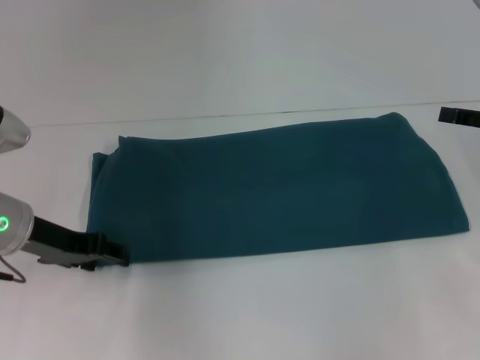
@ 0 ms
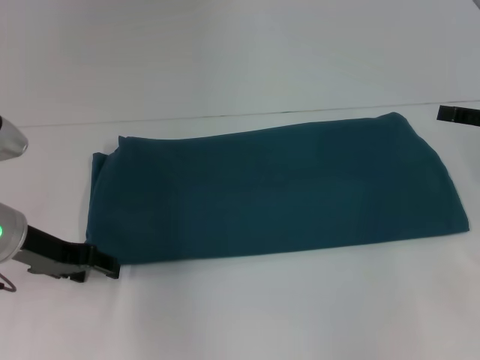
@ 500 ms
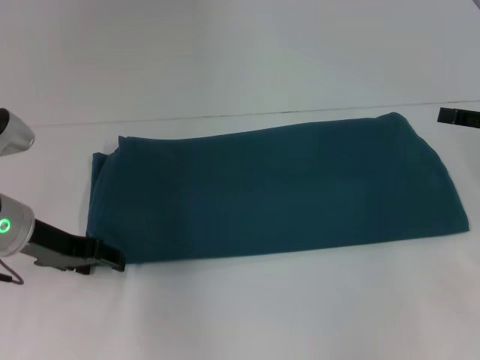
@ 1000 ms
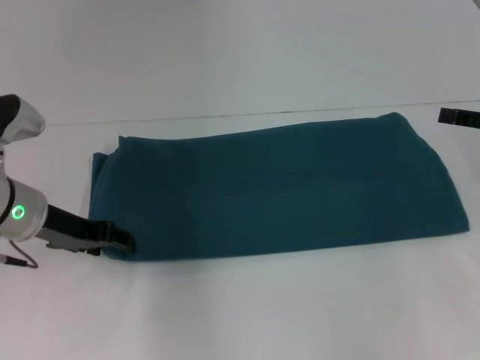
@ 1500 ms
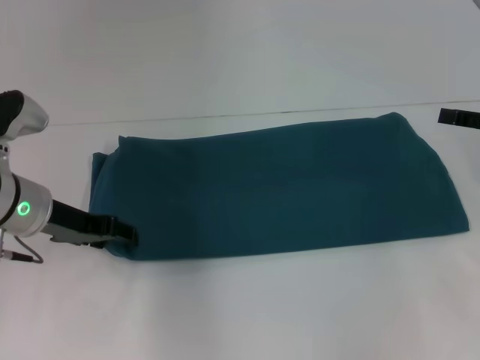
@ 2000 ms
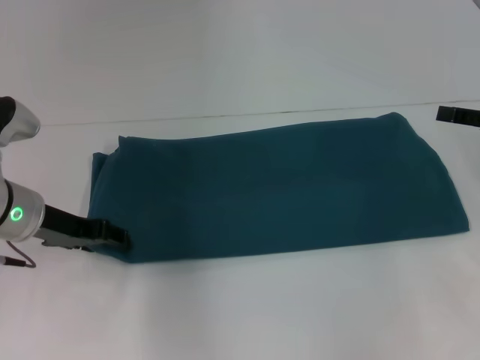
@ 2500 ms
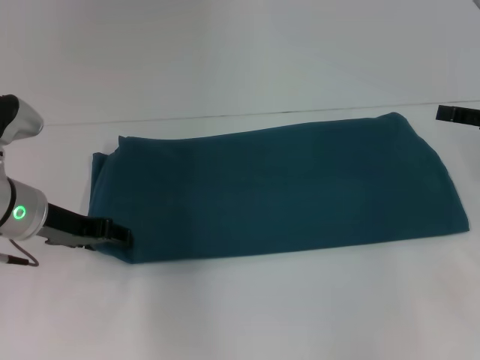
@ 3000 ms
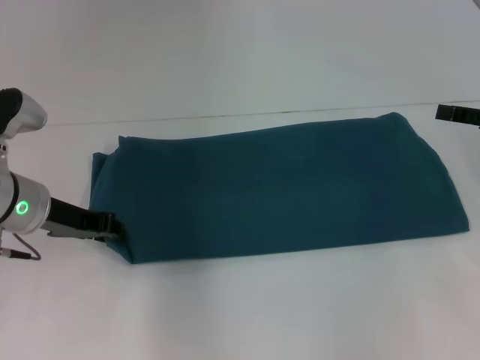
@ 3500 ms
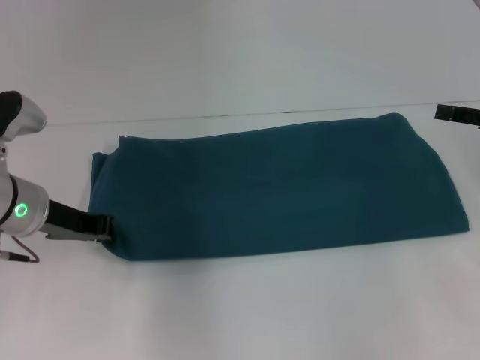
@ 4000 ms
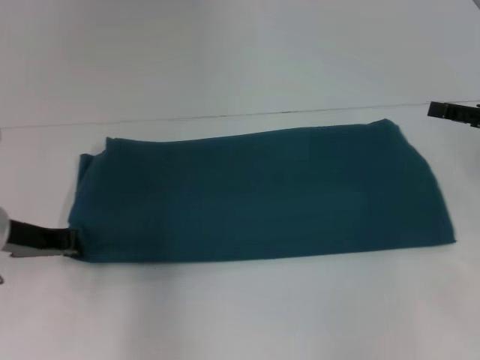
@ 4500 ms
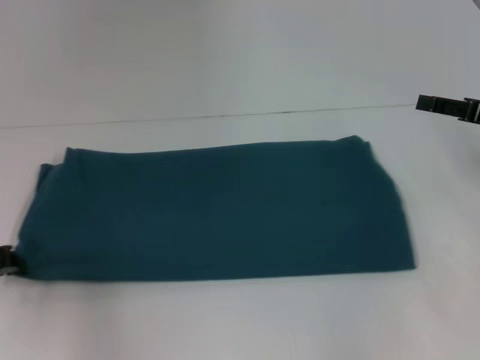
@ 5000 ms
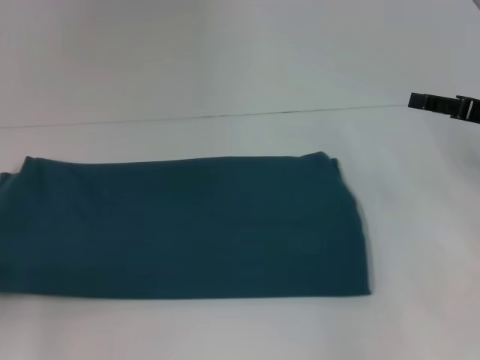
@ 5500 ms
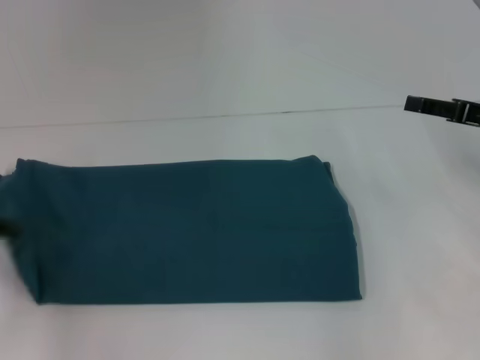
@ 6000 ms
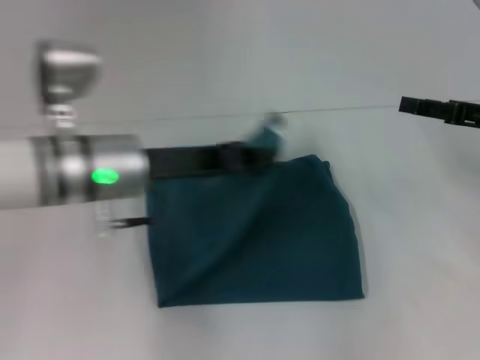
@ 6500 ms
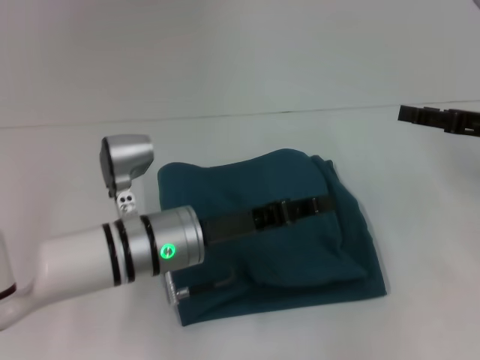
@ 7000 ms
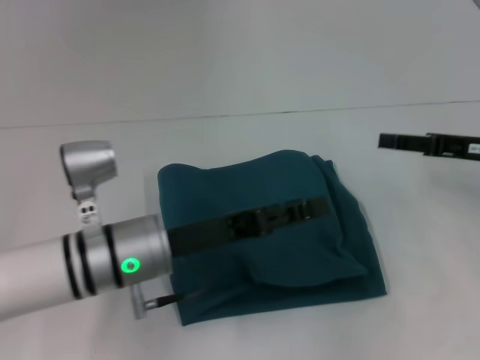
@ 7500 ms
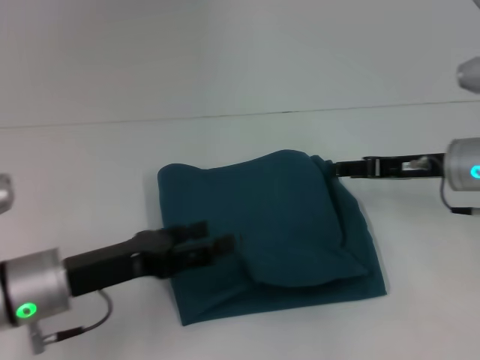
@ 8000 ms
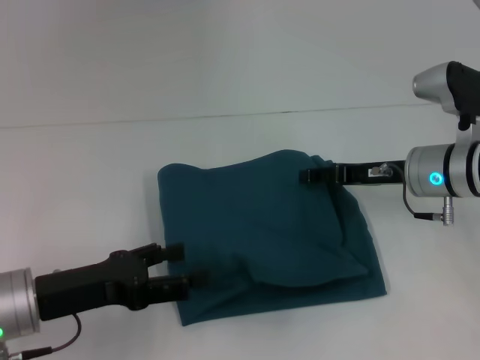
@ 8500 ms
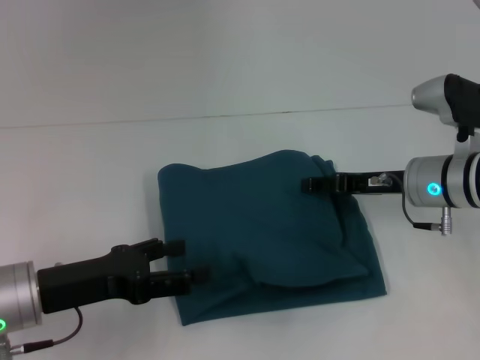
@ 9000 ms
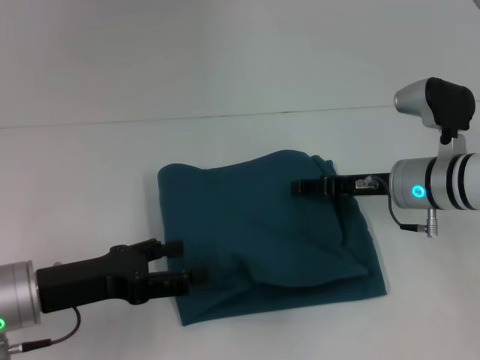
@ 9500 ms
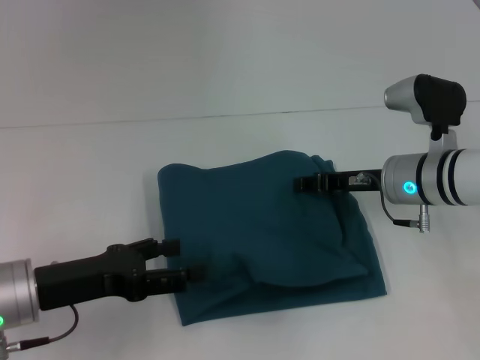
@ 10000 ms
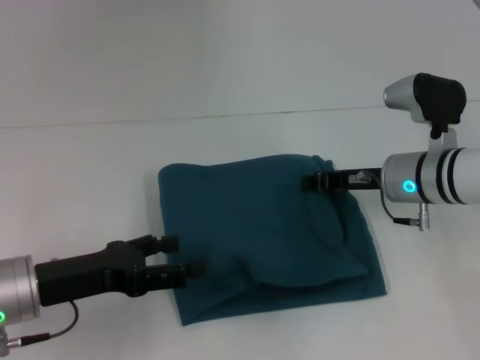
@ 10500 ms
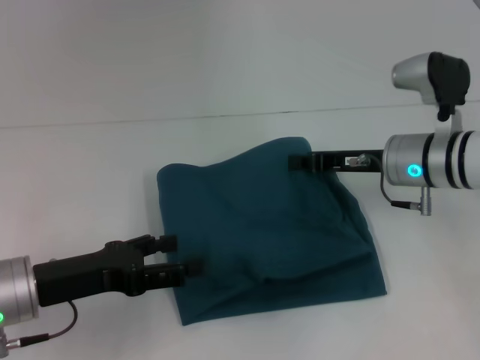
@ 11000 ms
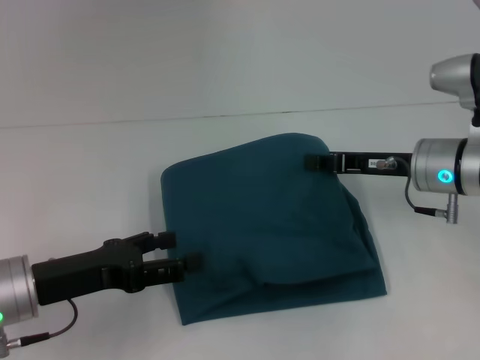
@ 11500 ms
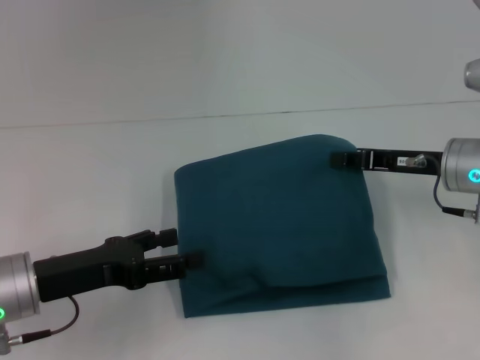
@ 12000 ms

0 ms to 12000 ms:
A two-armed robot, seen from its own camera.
Step, 0 ms to 7000 ms: Fold the clothes to the left.
0 ms to 2000 ms: The grippers move only a little.
2000 ms to 4000 ms: The left gripper closes up.
4000 ms to 6000 ms: The left gripper is displaced to the left and backward by some 15 cm.
6000 ms to 8000 ms: The left gripper goes roughly 15 cm to the right, and opens its fingers. Meanwhile the right gripper shifts about 5 cm to the left.
8000 ms to 10000 ms: The right gripper moves to the left, some 5 cm, and closes up.
10000 ms to 12000 ms: The right gripper ends up some 5 cm from where it was, and closes.

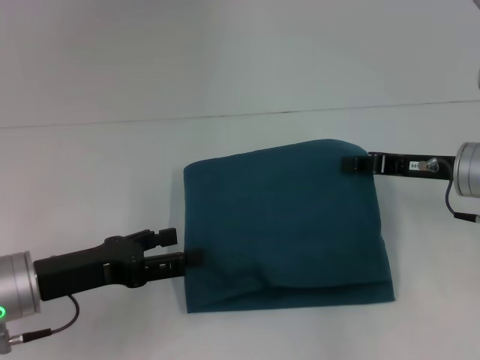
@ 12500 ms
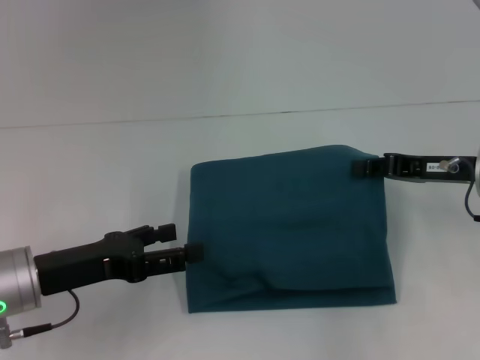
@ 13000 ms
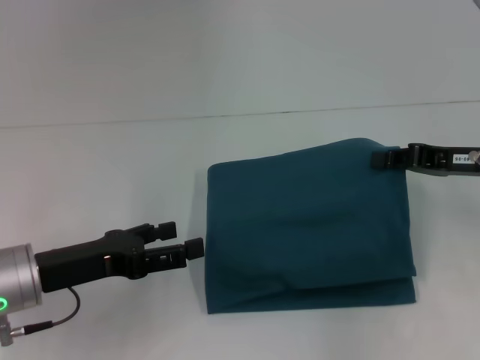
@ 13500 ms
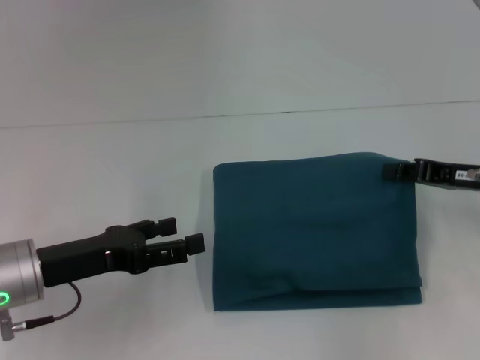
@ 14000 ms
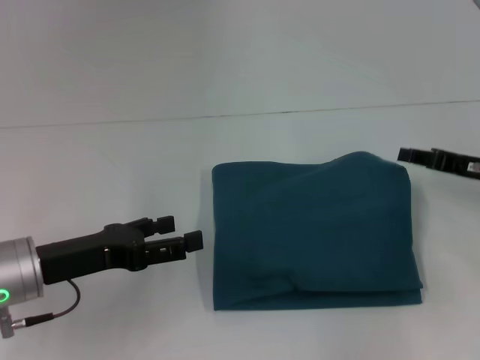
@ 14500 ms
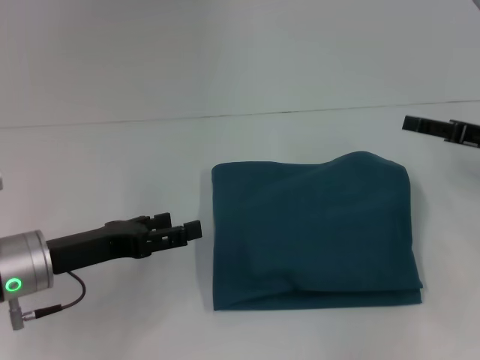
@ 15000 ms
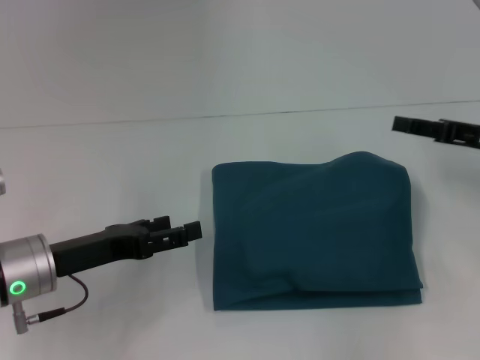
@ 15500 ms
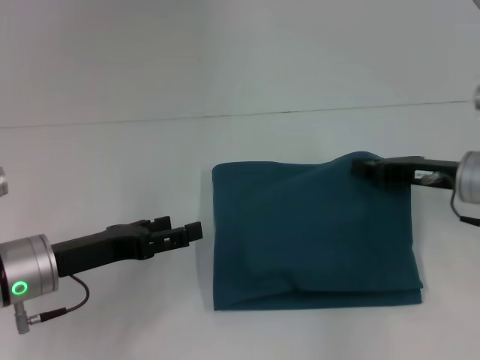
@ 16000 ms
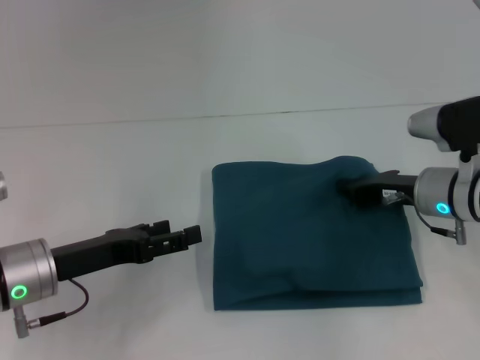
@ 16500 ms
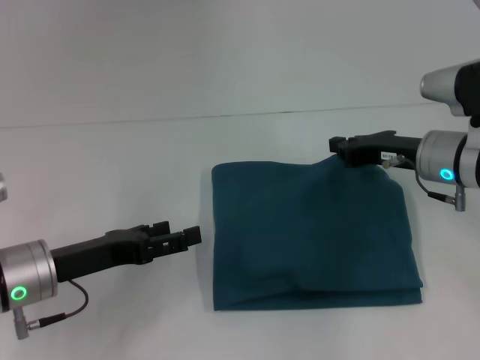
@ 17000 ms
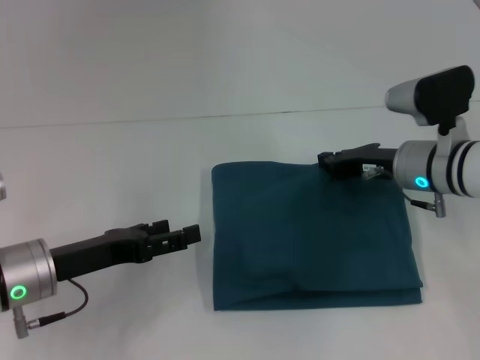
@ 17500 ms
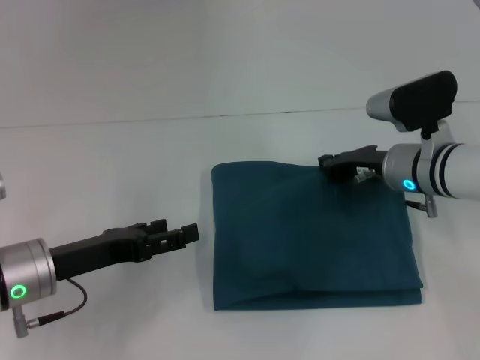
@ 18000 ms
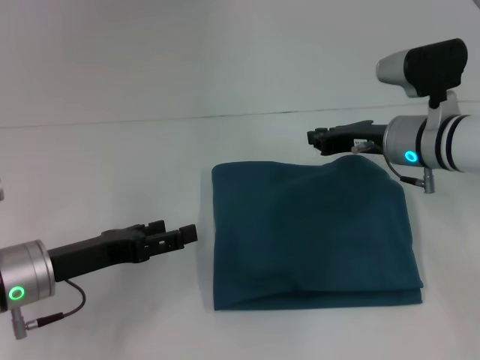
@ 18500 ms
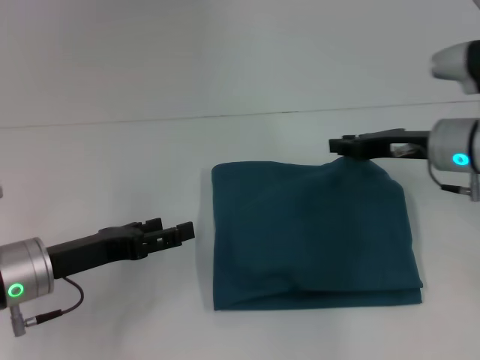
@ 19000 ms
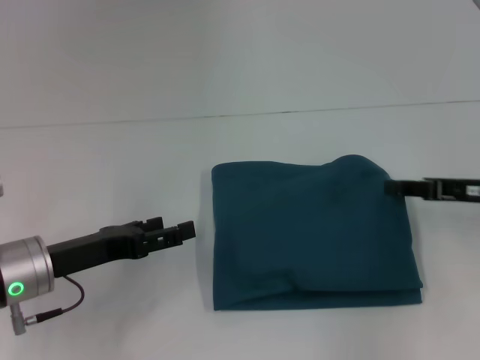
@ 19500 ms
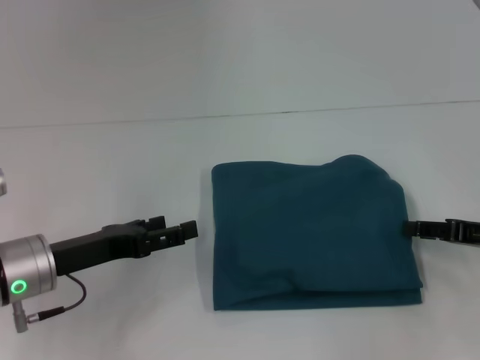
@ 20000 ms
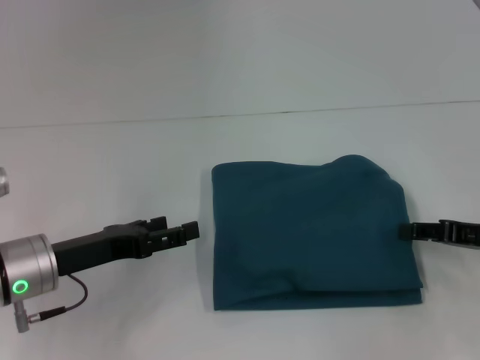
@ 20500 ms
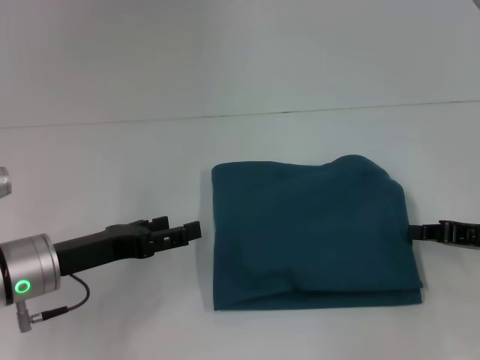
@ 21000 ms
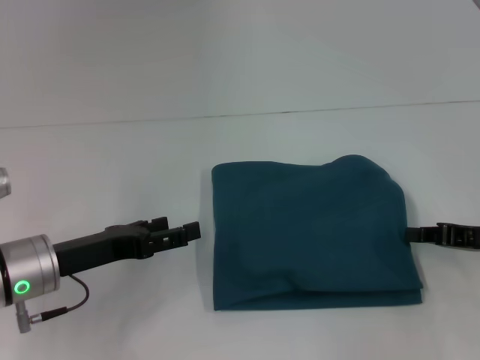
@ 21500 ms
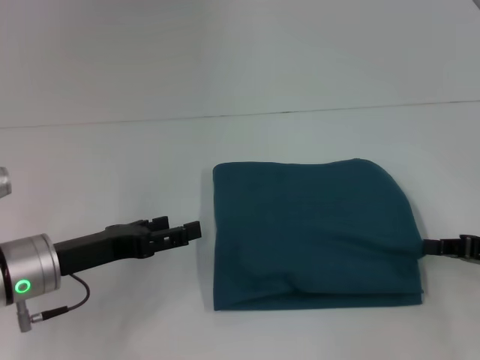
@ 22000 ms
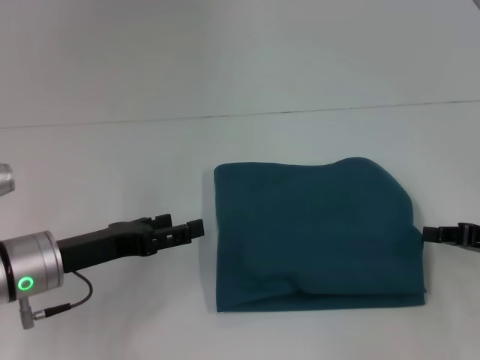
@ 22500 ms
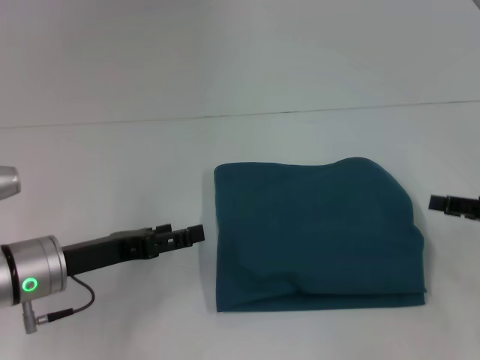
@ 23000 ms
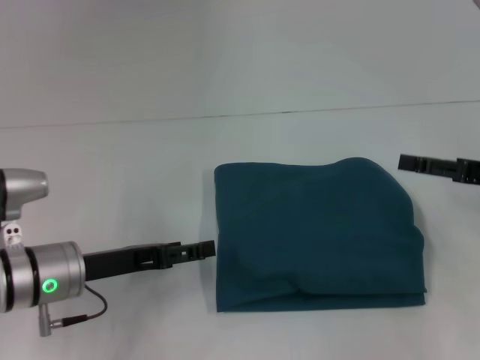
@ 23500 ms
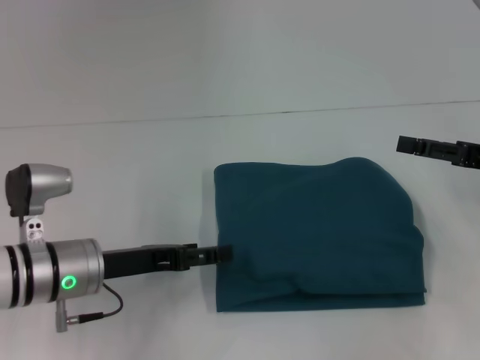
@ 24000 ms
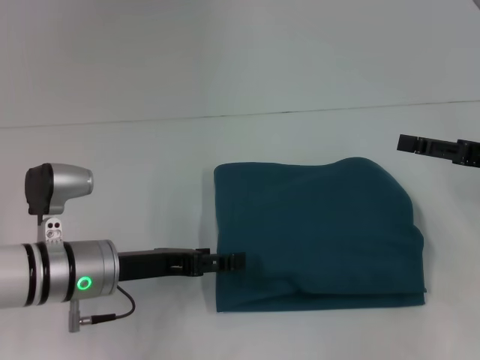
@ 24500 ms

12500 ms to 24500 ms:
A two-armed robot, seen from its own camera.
12500 ms to 14500 ms: The right gripper goes about 5 cm to the right.
14500 ms to 16500 ms: The right gripper moves to the left, some 10 cm, and opens and closes again.
16500 ms to 18500 ms: The right gripper ends up about 5 cm from where it was.
18500 ms to 20500 ms: The right gripper is displaced to the right and backward by roughly 15 cm, and opens its fingers.
20500 ms to 22500 ms: The right gripper closes.
22500 ms to 24500 ms: The right gripper moves upward, roughly 5 cm, and opens its fingers. Meanwhile the left gripper moves some 5 cm.

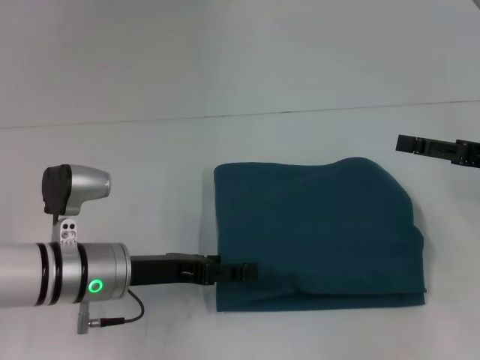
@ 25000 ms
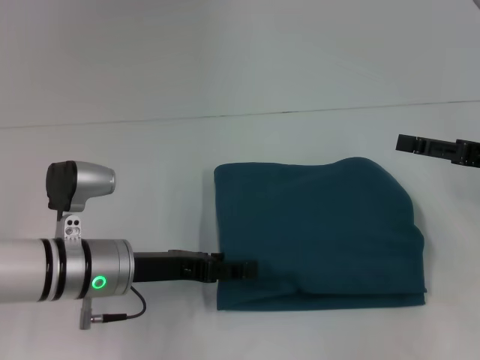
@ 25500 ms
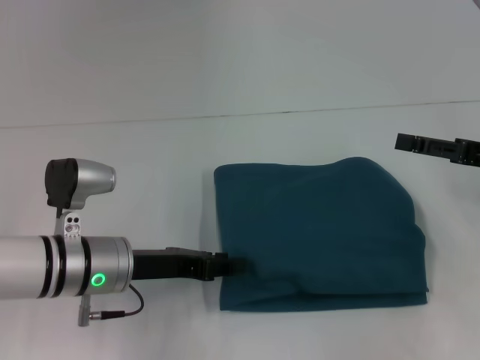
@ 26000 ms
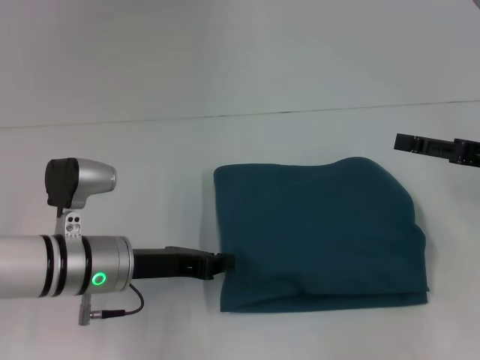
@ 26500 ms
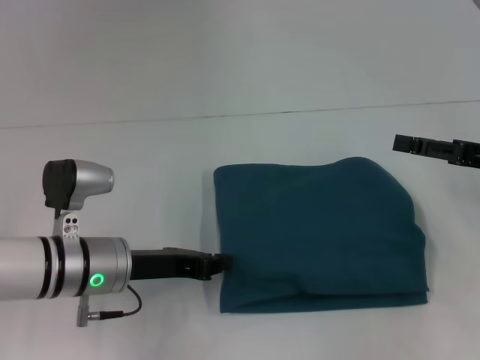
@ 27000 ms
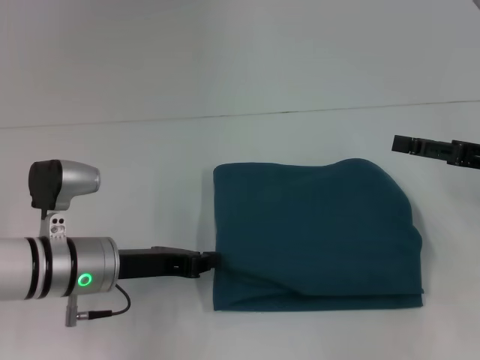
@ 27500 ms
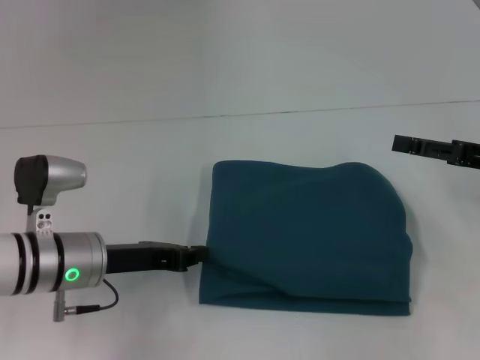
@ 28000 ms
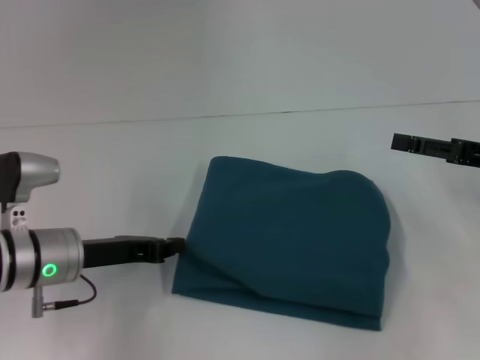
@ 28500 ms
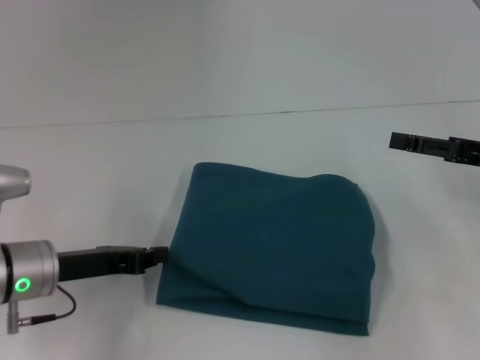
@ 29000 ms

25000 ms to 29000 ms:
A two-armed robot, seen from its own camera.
25000 ms to 27000 ms: The left gripper closes its fingers.
27000 ms to 29000 ms: The left gripper is displaced to the left by approximately 5 cm.
